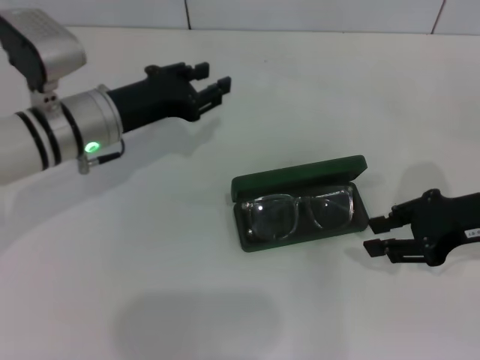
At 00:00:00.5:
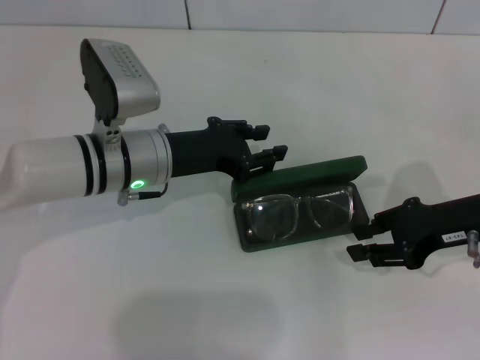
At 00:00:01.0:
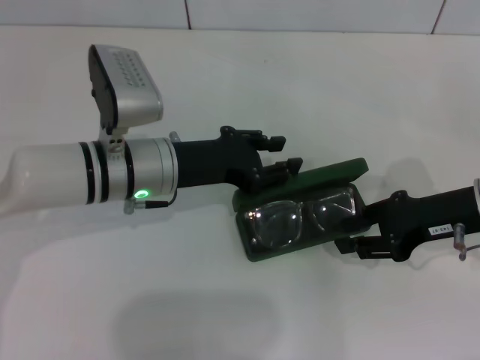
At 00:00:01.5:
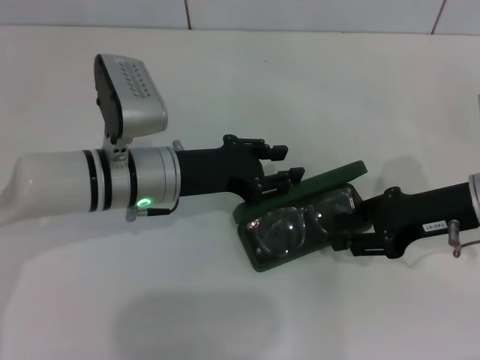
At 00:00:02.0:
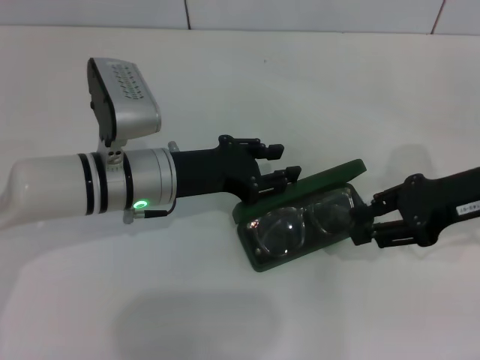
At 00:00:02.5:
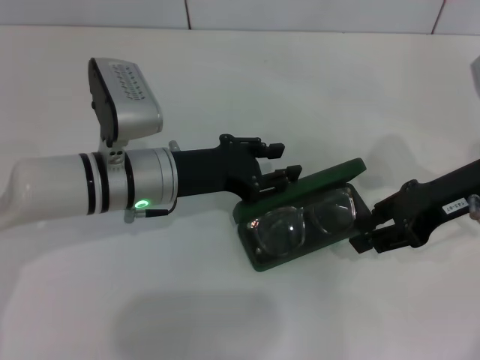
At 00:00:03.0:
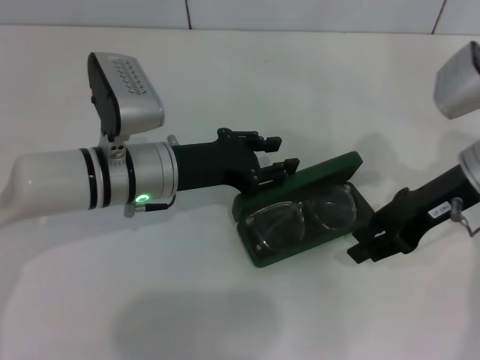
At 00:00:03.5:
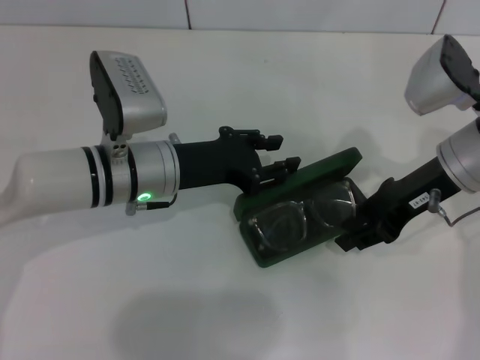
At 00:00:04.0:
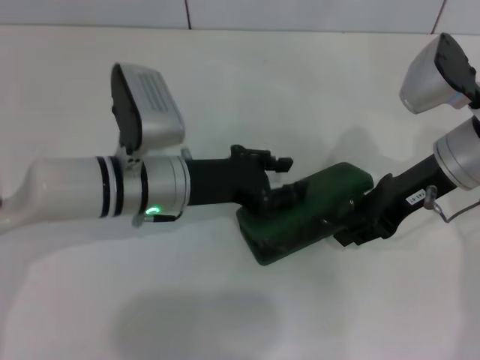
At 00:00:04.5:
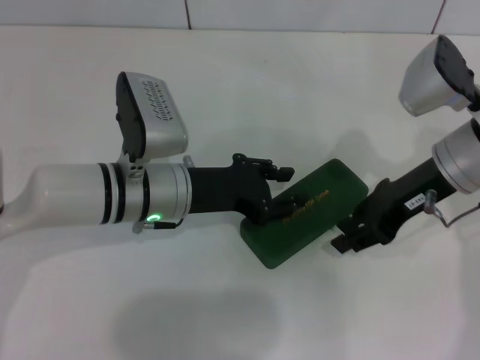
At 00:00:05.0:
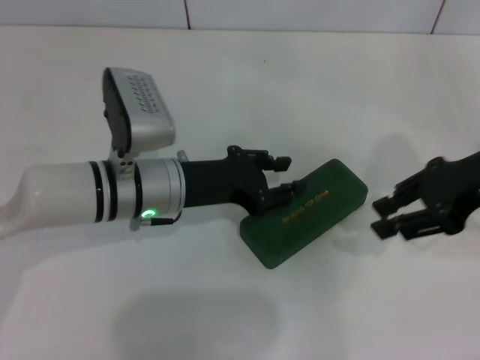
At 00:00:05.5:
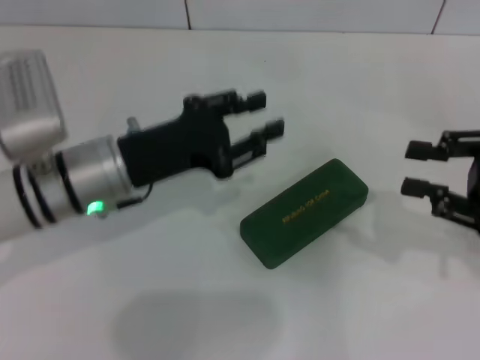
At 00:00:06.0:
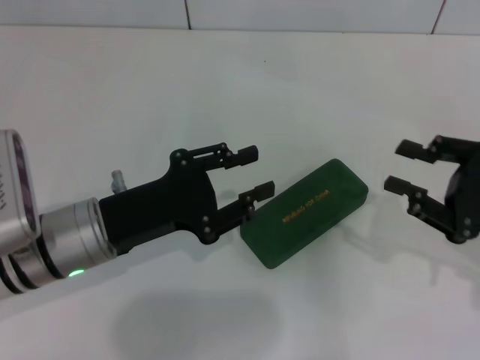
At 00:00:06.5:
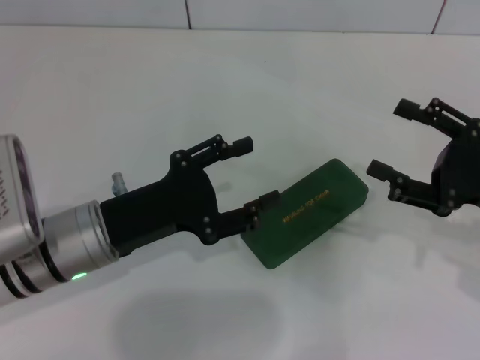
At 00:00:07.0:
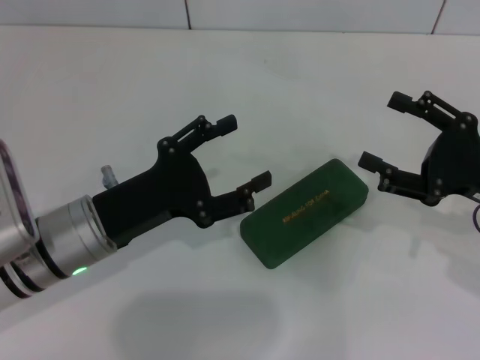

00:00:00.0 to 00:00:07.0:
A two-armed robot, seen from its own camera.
Step, 00:00:00.0 to 00:00:04.5: Close the glasses case with your left hand.
00:00:00.0 to 00:00:02.0: The left gripper shifts by about 5 cm.
00:00:02.0 to 00:00:03.5: The right gripper travels to the left by some 5 cm.
00:00:03.5 to 00:00:05.0: The right gripper travels upward and to the right by roughly 5 cm.
00:00:05.0 to 00:00:07.0: The left gripper shifts some 10 cm backward and to the left, and opens up. The right gripper moves downward, approximately 10 cm, and opens its fingers.
